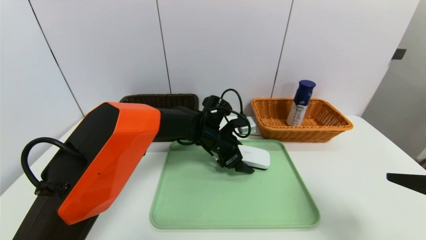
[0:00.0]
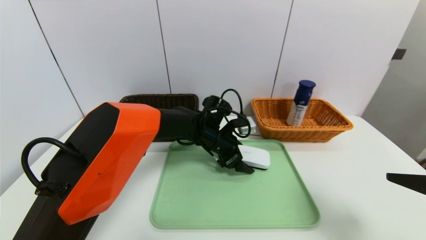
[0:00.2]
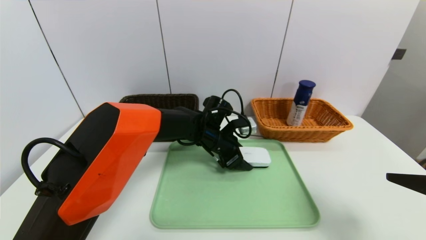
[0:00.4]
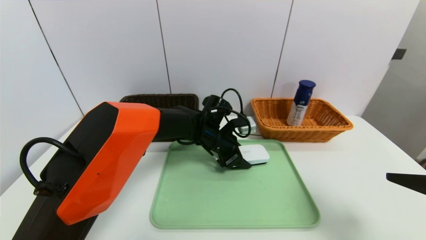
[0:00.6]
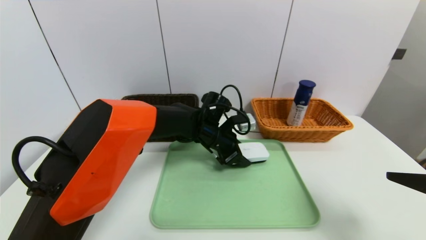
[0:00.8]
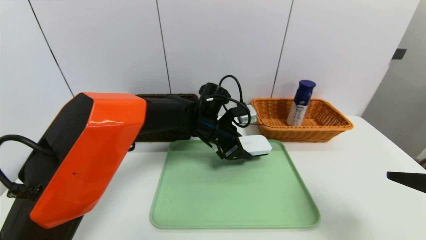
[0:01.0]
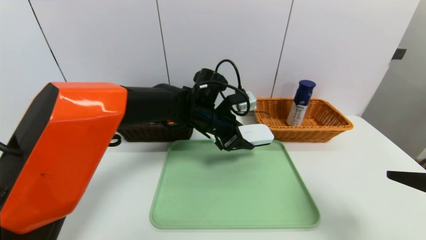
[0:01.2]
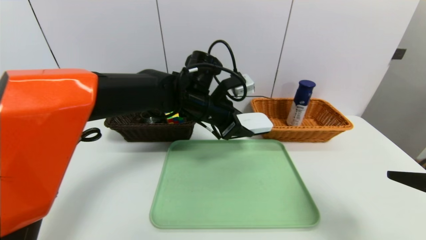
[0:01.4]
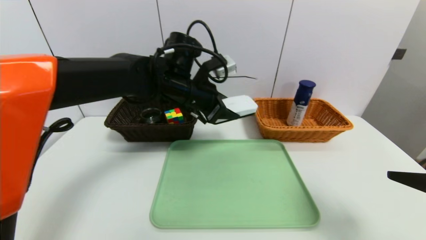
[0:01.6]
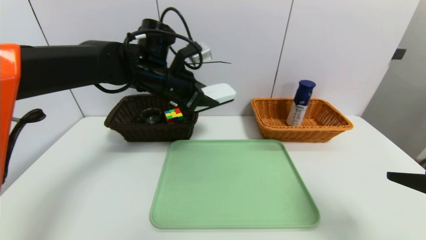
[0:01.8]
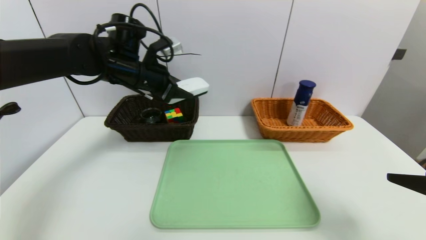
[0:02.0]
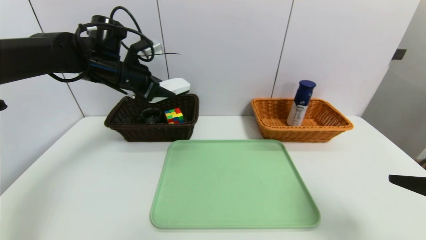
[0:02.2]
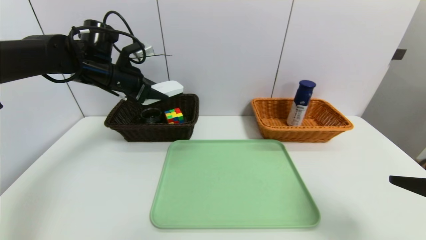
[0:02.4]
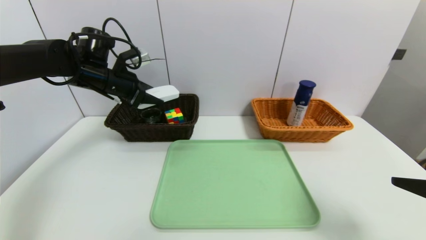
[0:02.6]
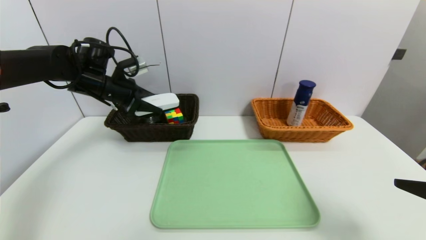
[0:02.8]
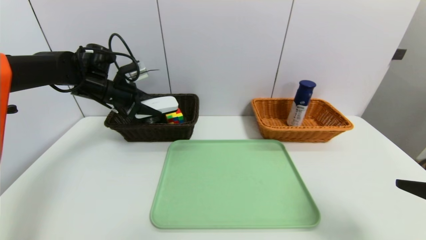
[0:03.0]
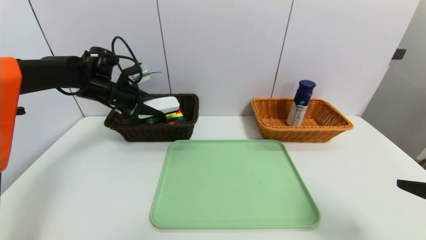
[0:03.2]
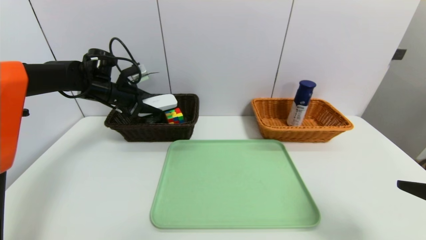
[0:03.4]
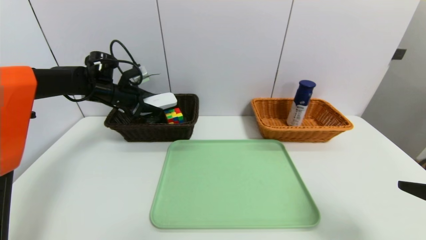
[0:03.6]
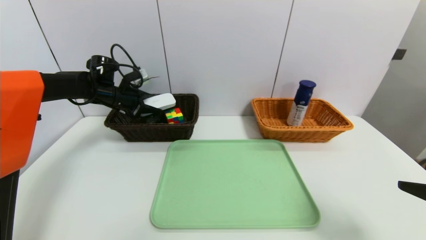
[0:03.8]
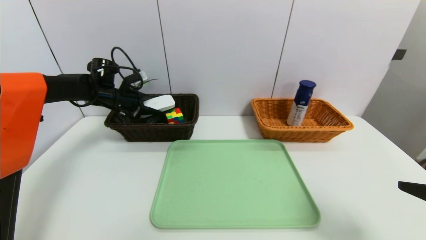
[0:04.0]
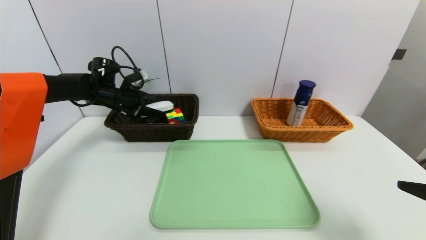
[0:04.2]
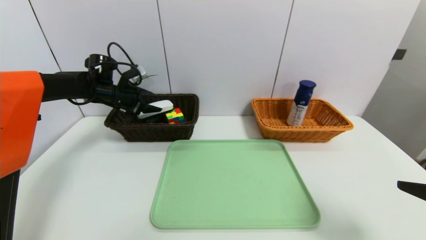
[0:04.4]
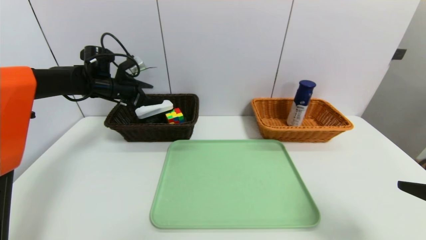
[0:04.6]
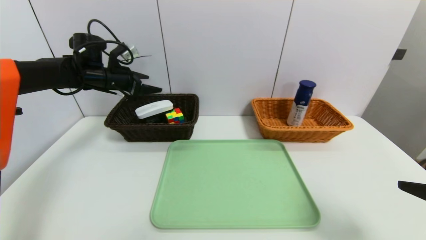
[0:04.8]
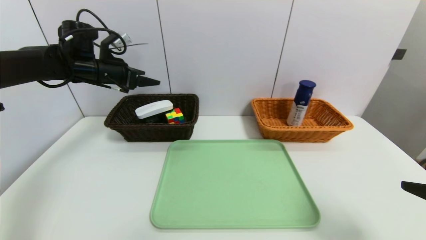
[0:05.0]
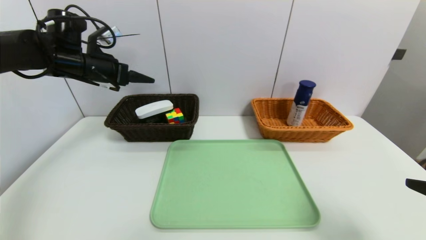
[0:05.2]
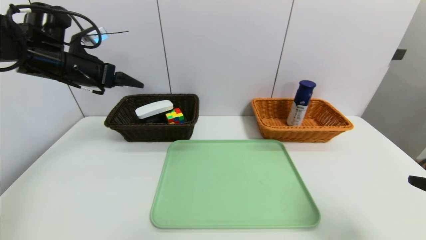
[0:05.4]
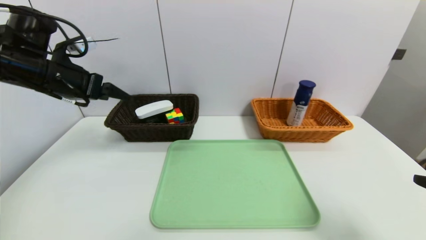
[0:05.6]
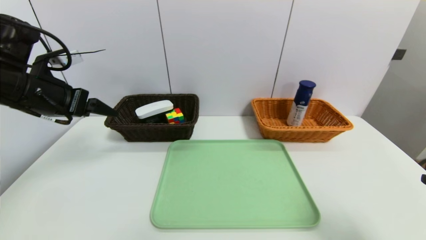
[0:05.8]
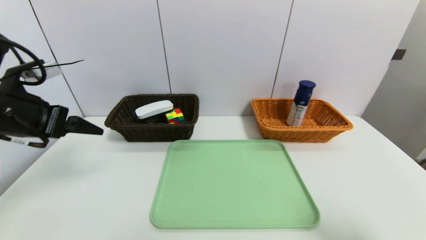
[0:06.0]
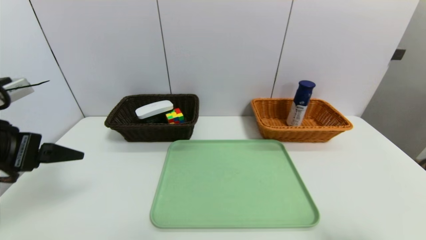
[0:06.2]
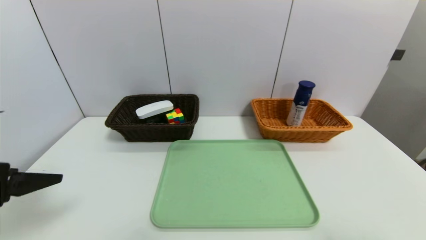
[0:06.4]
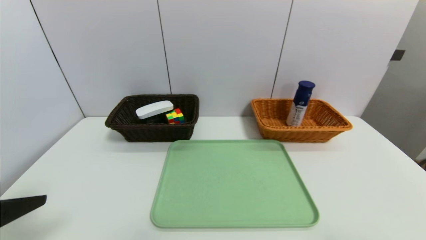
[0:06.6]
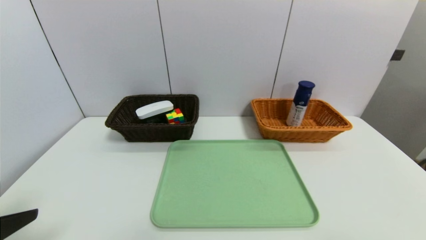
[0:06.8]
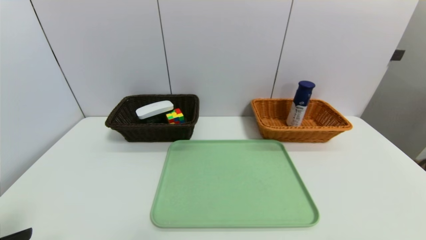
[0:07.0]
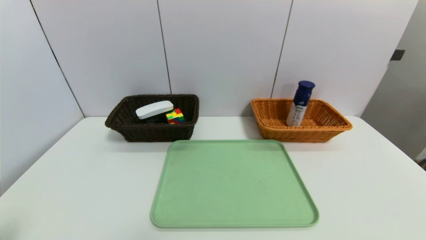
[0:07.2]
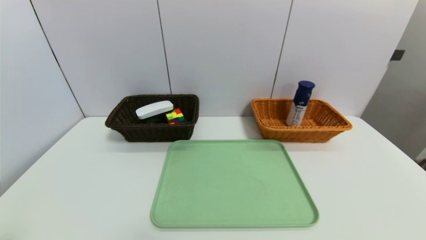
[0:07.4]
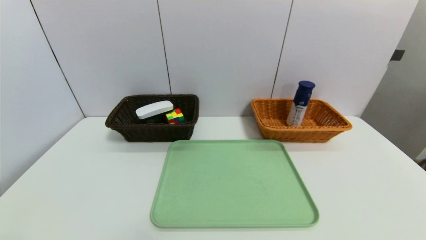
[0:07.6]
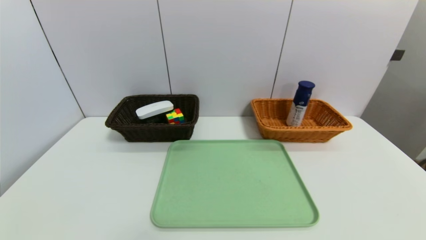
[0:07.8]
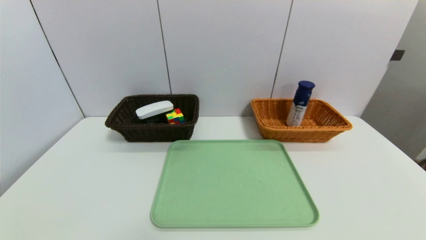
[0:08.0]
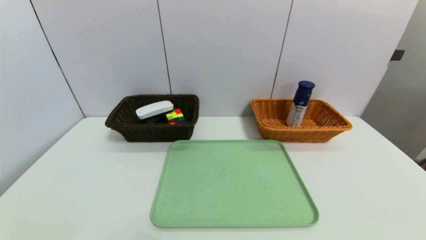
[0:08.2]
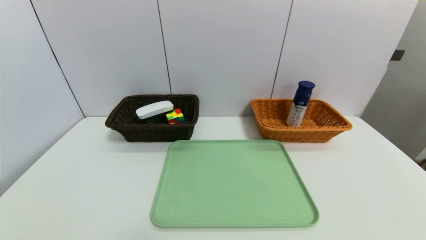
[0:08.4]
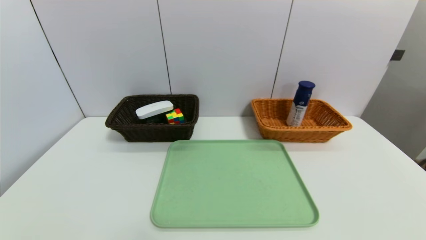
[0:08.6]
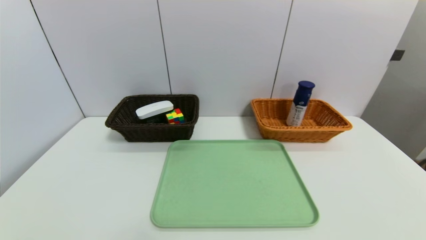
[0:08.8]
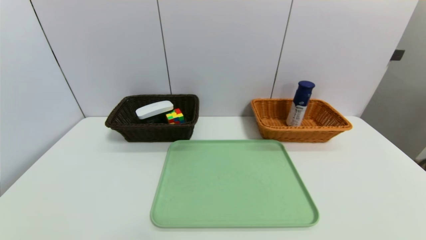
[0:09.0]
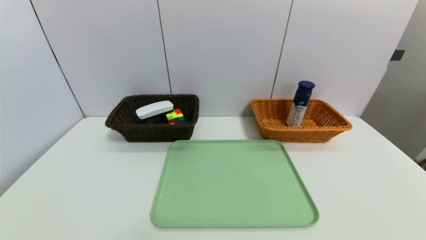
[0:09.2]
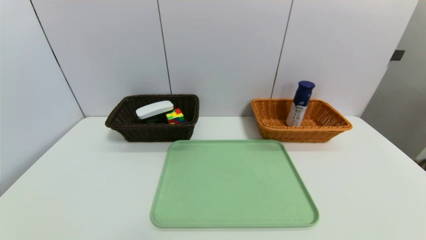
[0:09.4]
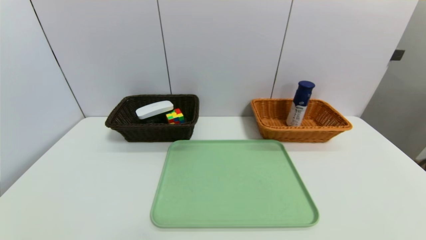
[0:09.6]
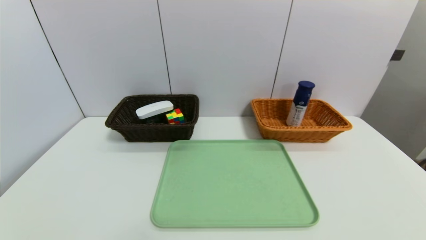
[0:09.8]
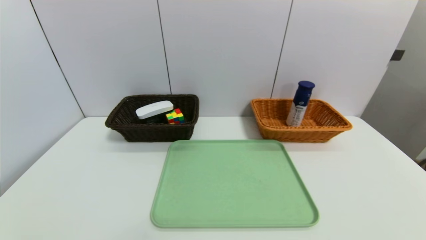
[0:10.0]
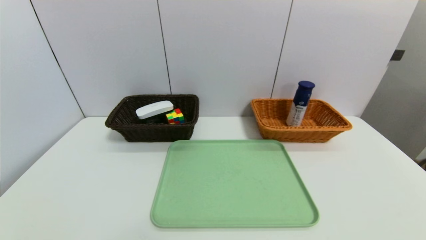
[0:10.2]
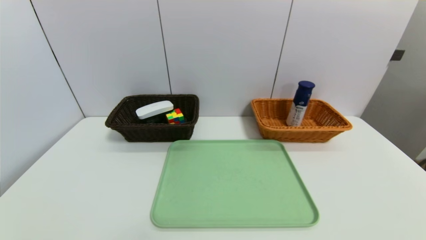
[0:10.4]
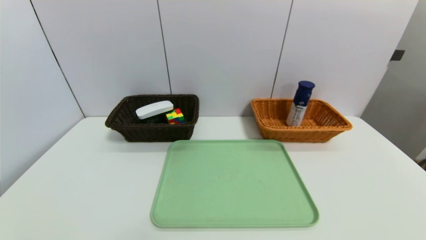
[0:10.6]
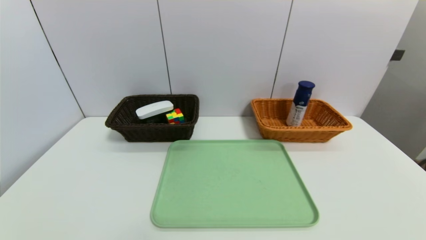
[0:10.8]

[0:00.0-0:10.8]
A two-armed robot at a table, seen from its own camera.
Task of the whole recording: place the food in the right basket with the right gripper, and place the non food items in the left basket with the left gripper.
Step, 0:00.0 to 0:04.6: Grasp the white eraser and put it in the left basket.
0:00.0 to 0:01.6: The left gripper heads upward and to the left, covering about 15 cm, and closes its fingers.
0:01.6 to 0:03.0: The left gripper moves to the left, about 20 cm.
0:03.0 to 0:04.6: The left gripper changes place by about 5 cm.
0:04.6 to 0:06.2: The left gripper shifts roughly 30 cm backward. Meanwhile the right gripper shifts roughly 5 cm backward.
0:06.2 to 0:07.8: The left gripper shifts approximately 20 cm backward and downward.

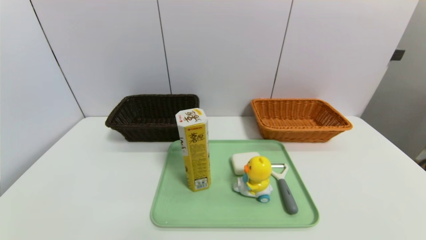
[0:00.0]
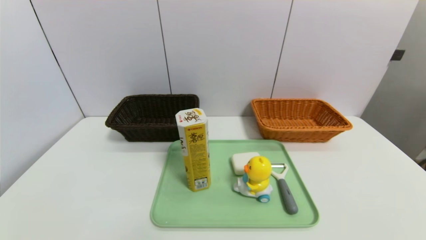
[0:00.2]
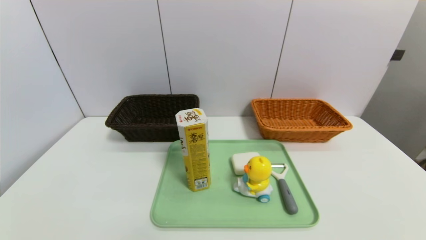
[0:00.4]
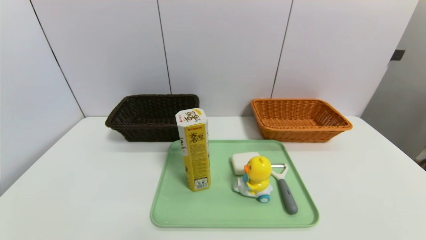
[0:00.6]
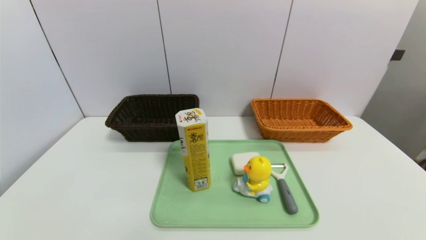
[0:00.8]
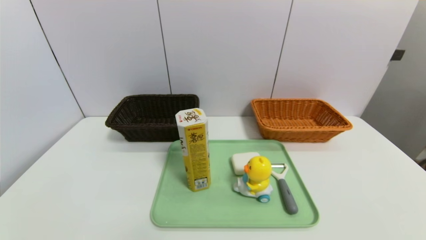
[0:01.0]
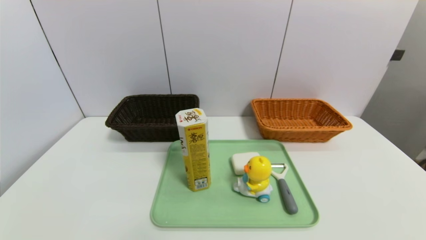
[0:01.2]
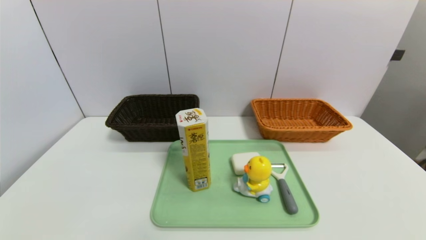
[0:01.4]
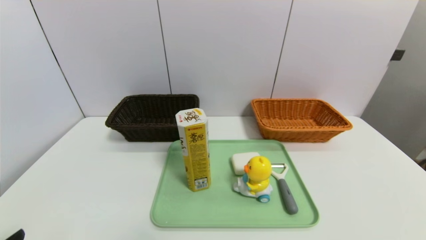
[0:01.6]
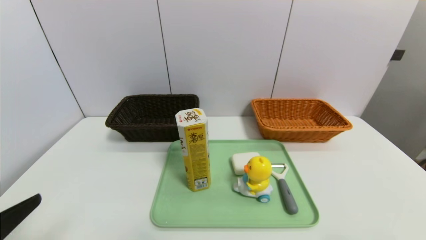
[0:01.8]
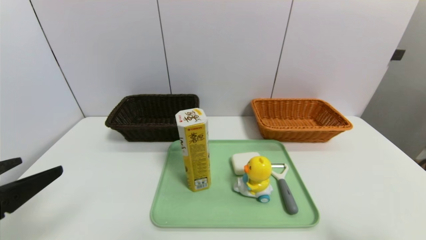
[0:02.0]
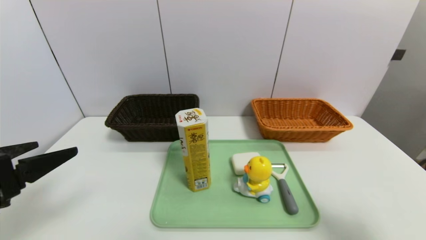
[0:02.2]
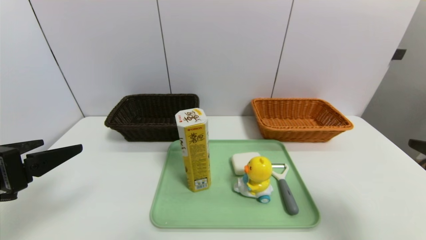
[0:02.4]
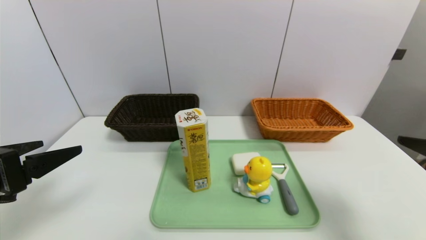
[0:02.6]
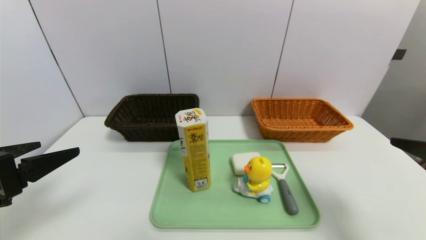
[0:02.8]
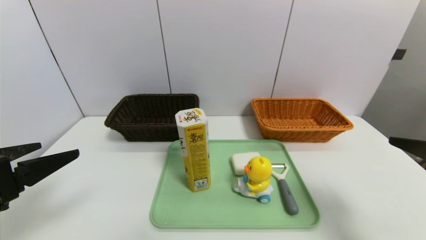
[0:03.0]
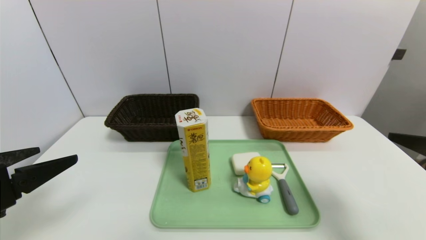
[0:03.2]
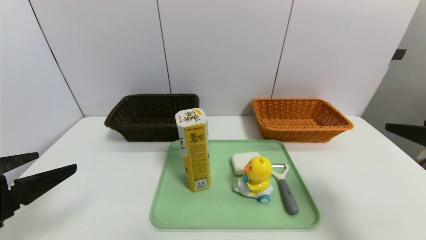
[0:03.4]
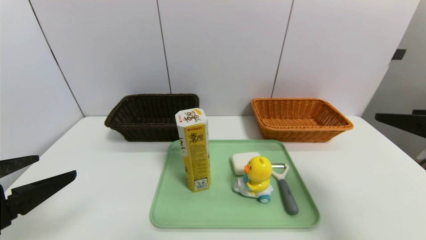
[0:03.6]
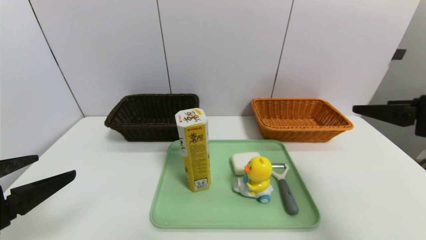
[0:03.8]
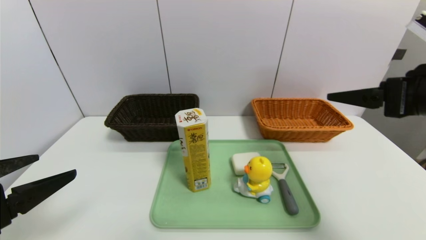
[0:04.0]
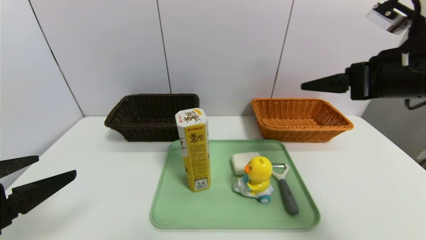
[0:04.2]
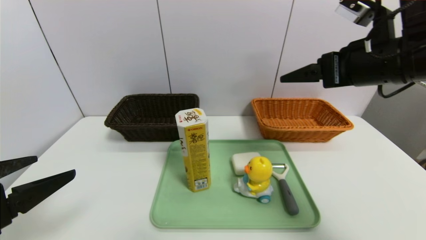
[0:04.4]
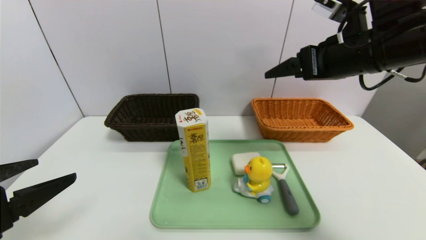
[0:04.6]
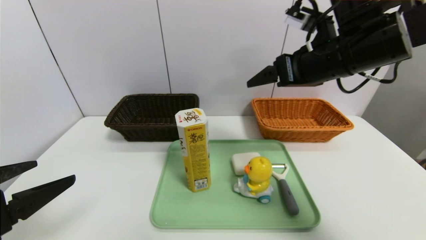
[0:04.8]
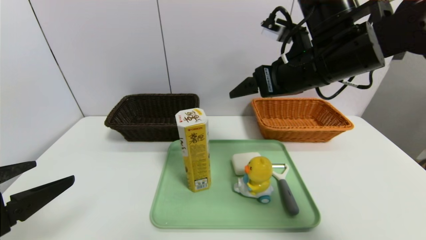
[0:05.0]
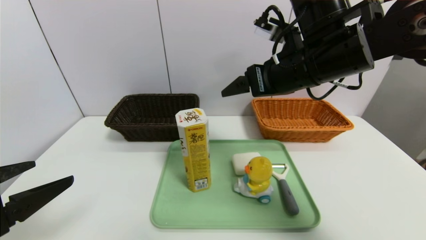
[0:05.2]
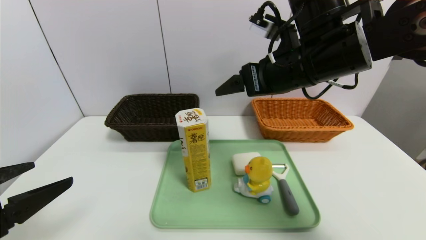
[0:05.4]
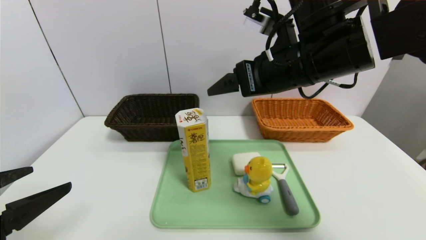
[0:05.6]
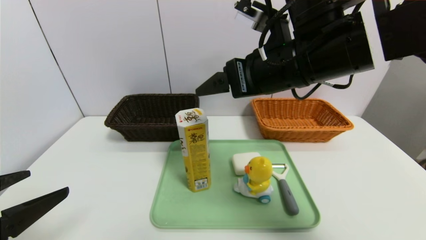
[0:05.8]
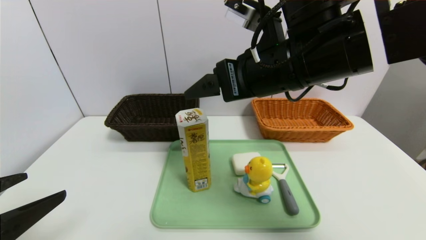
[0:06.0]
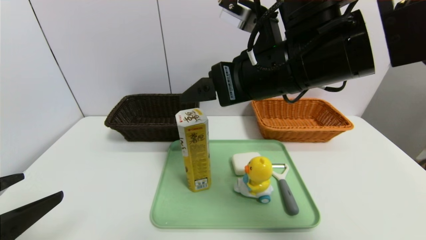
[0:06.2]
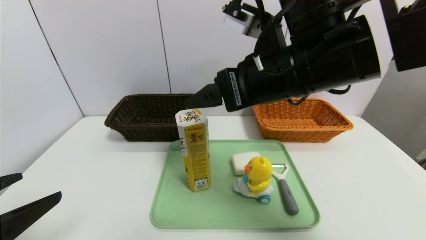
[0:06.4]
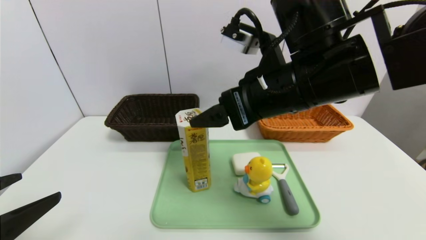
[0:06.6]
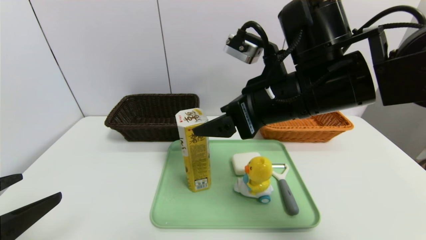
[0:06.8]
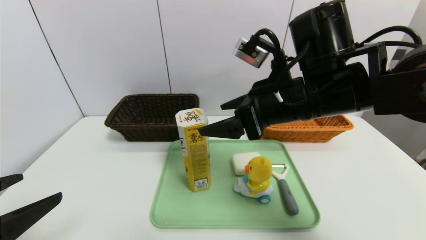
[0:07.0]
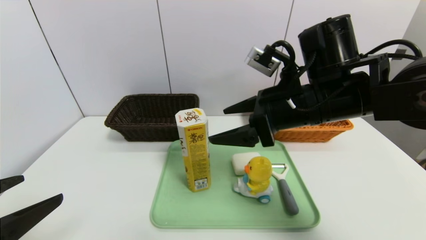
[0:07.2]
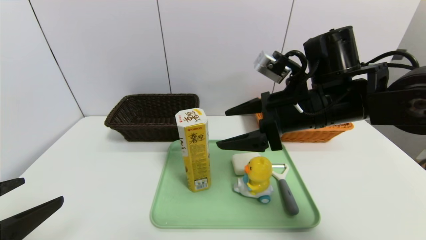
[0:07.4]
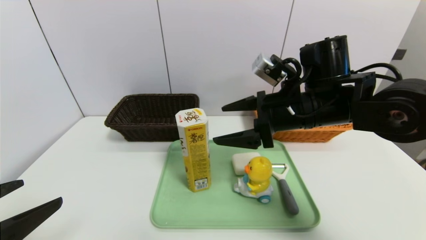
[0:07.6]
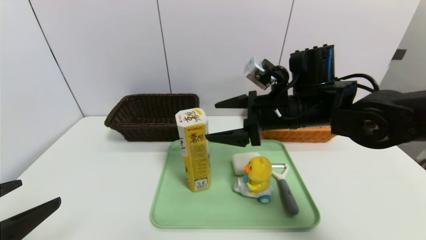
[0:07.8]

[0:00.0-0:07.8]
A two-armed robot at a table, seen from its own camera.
Task of the whole recording: place the food in the right basket with the right gripper, and place the non food items in the left basket with the left gripper.
0:01.6 to 0:03.2: The two grippers go some 15 cm forward and upward.
0:03.2 to 0:04.6: The right gripper travels forward, to the left and upward by some 20 cm.
0:04.6 to 0:06.2: The right gripper travels to the left by some 10 cm.
0:06.2 to 0:07.8: The right gripper travels downward and forward by some 10 cm.
